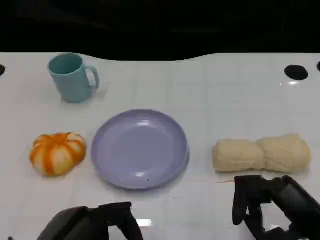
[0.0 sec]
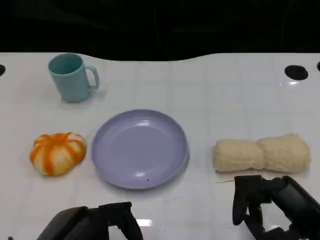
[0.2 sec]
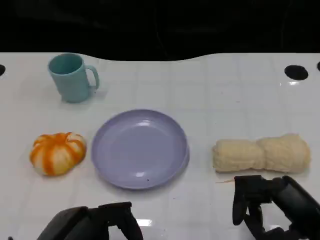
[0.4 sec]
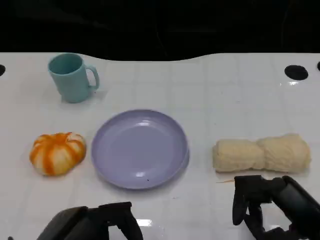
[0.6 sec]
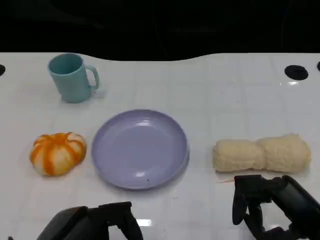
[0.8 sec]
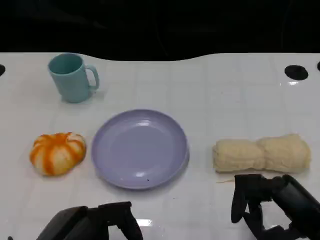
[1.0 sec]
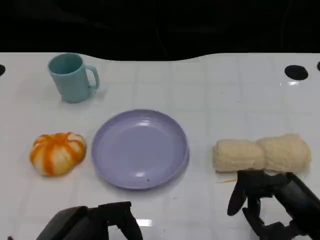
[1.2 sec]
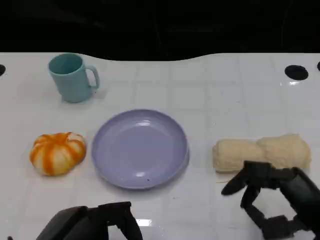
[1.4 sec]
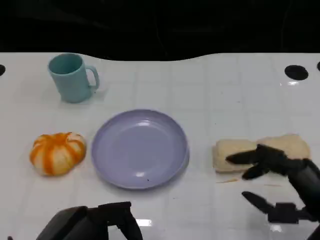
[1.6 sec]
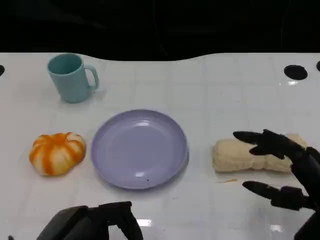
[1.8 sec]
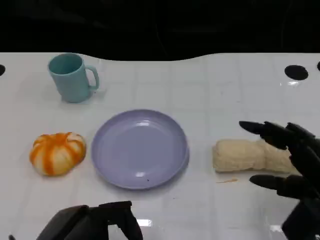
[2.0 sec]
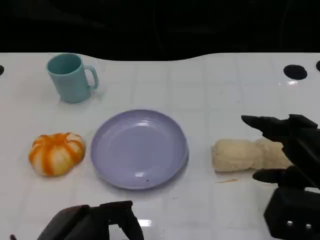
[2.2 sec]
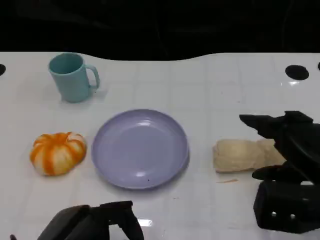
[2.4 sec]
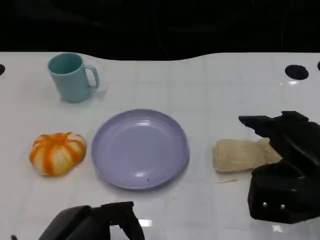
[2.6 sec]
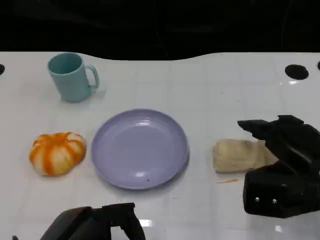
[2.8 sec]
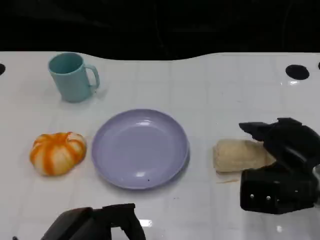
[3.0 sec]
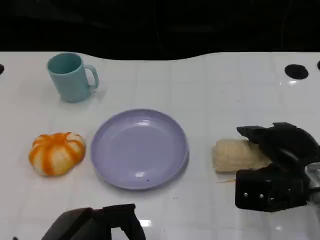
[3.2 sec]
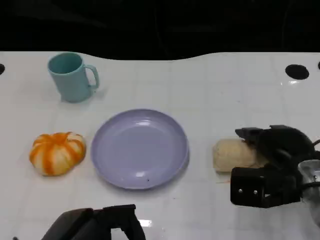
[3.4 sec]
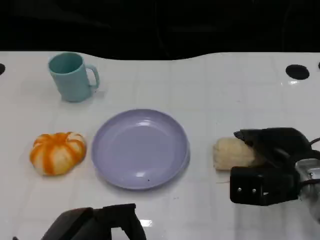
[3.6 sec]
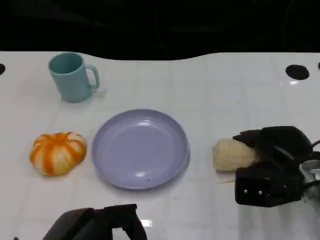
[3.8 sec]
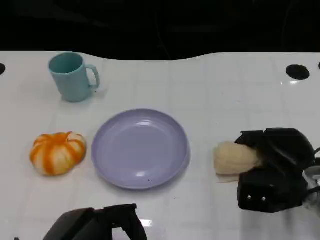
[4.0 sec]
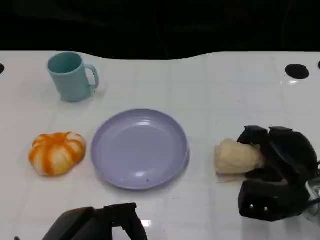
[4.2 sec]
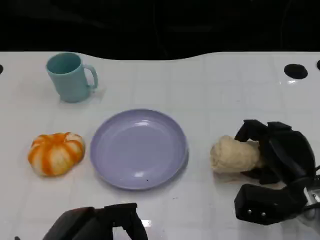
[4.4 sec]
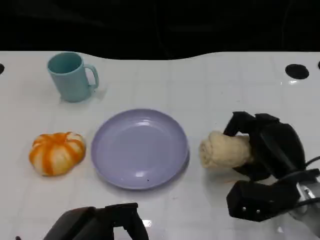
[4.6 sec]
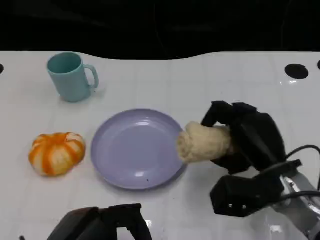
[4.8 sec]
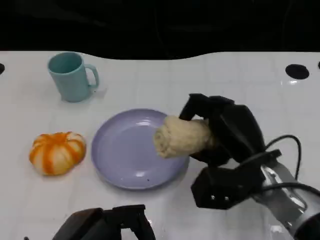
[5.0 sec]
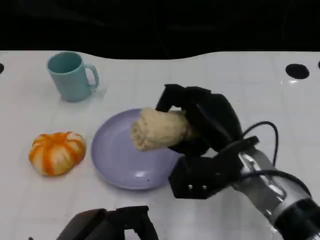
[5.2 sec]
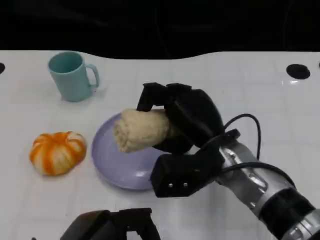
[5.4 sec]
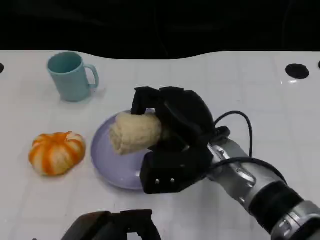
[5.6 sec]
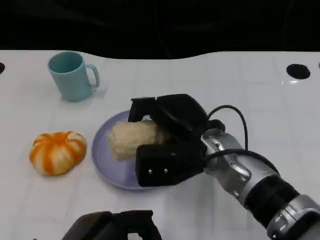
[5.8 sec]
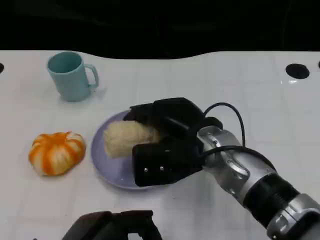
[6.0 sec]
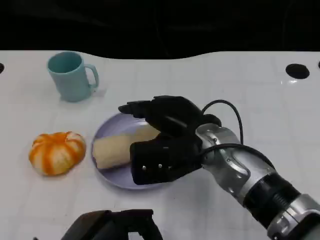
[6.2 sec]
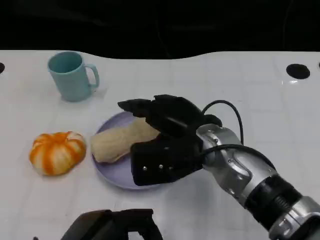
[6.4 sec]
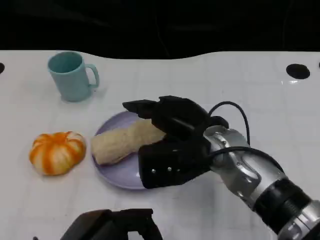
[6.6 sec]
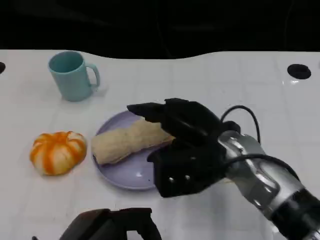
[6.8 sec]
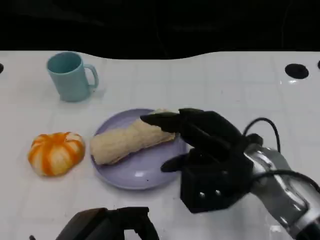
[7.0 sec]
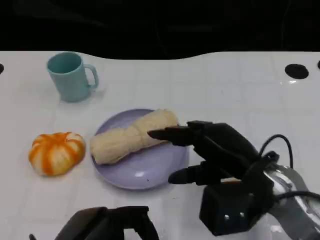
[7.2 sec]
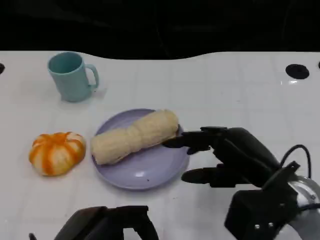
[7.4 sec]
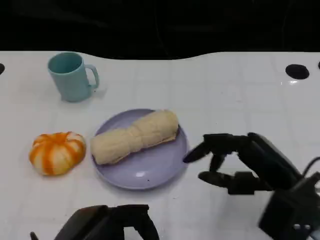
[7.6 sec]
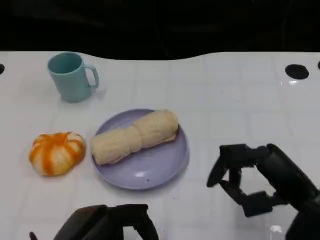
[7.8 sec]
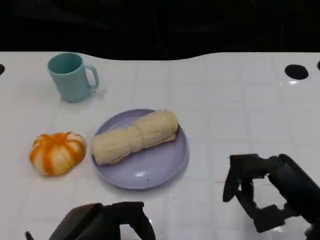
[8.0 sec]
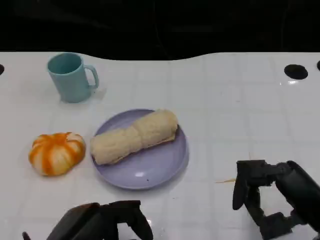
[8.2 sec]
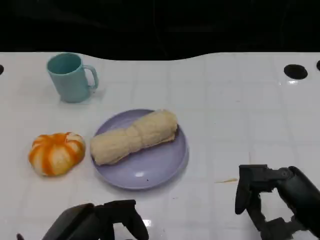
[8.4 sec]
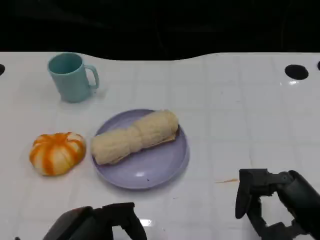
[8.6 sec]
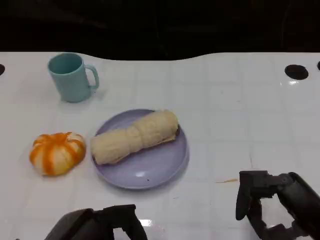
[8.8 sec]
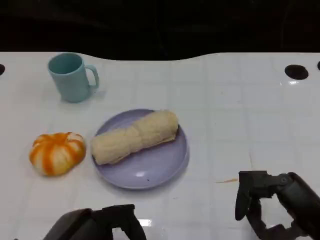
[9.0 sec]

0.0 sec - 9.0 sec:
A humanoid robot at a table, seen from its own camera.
Task of the whole recording: Grasp the towel on the left side of the plate with the left hand and place it into the plate.
0.0 sec - 1.6 sec: The hands make only small movements.
1.6 sec - 3.0 sec: The right hand moves forward, roughly 10 cm.
3.0 sec - 4.4 sec: The right hand travels downward by roughly 5 cm.
4.4 sec - 6.0 sec: The right hand is displaced to the left and upward by approximately 15 cm.
6.0 sec - 7.6 sec: The right hand goes about 15 cm to the right and backward.
7.6 sec - 9.0 sec: The right hand moves backward, some 5 cm.

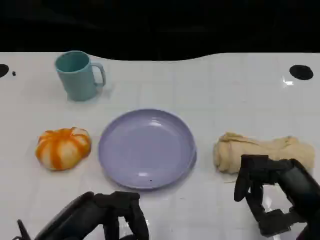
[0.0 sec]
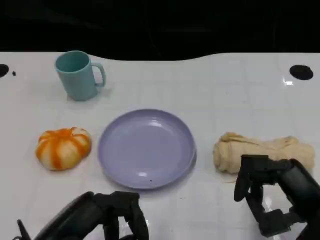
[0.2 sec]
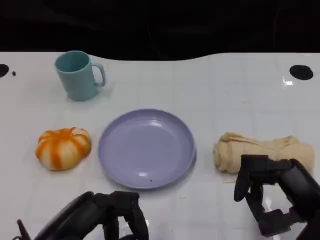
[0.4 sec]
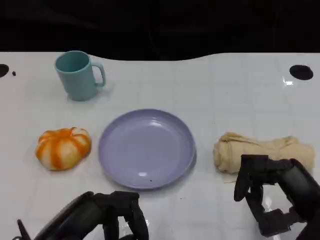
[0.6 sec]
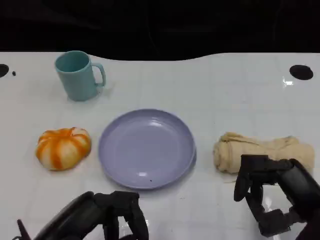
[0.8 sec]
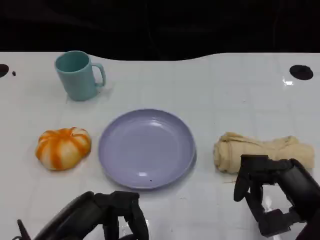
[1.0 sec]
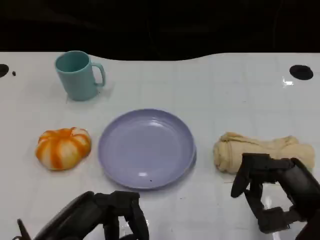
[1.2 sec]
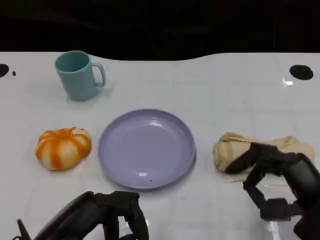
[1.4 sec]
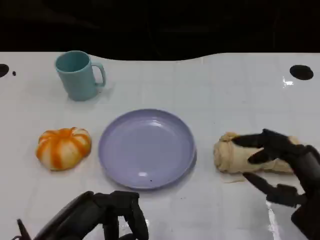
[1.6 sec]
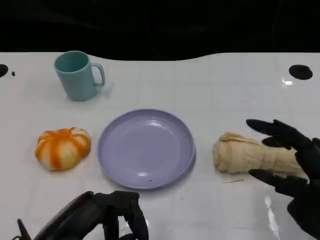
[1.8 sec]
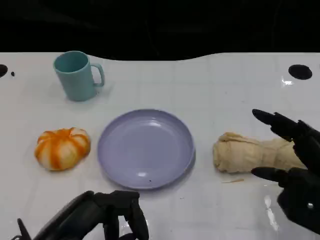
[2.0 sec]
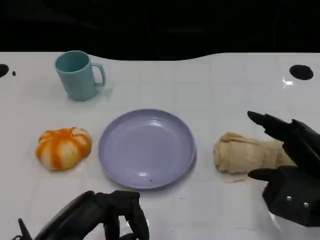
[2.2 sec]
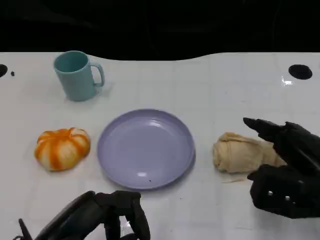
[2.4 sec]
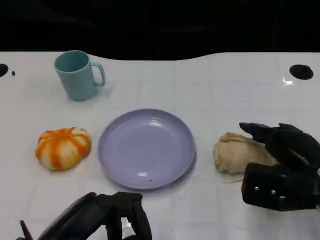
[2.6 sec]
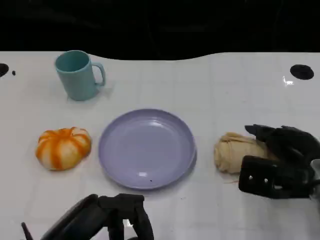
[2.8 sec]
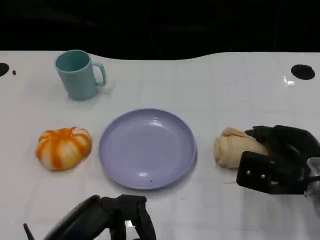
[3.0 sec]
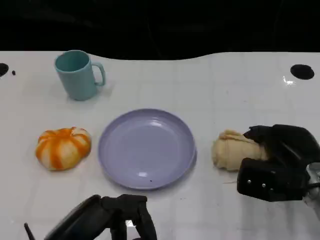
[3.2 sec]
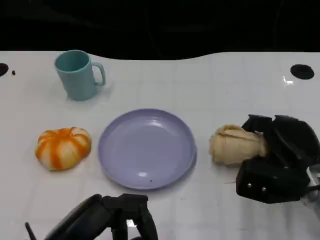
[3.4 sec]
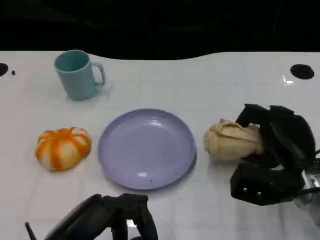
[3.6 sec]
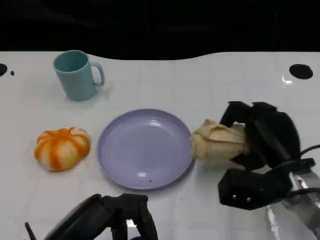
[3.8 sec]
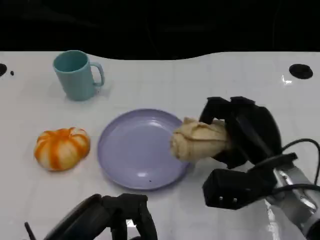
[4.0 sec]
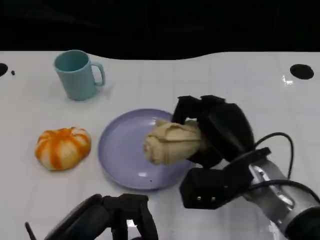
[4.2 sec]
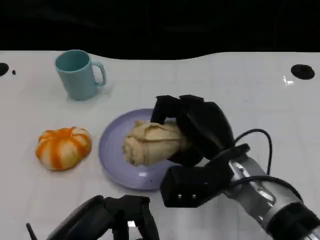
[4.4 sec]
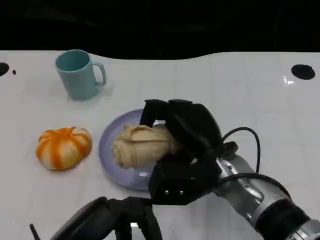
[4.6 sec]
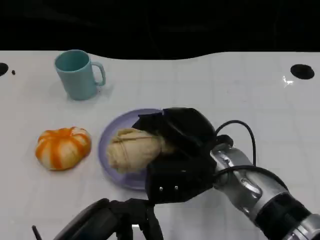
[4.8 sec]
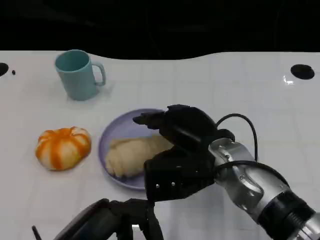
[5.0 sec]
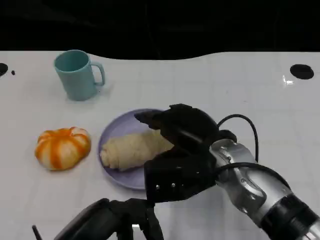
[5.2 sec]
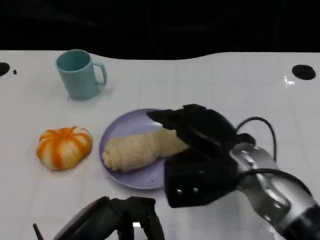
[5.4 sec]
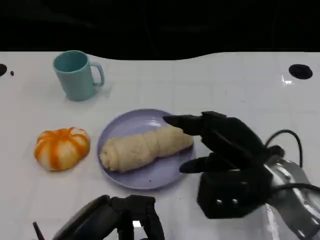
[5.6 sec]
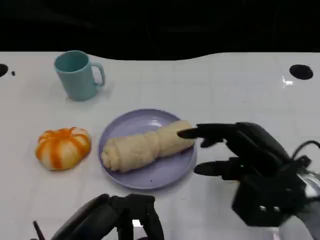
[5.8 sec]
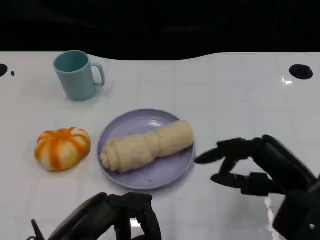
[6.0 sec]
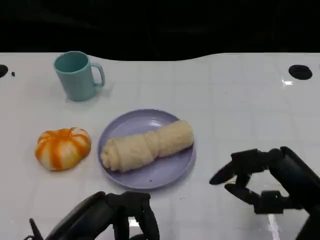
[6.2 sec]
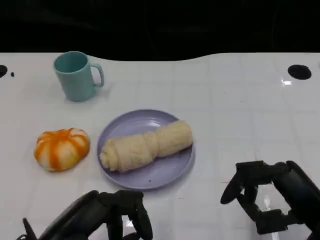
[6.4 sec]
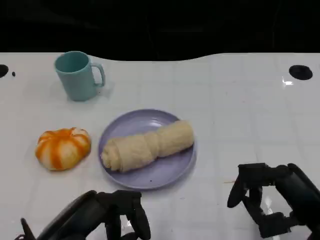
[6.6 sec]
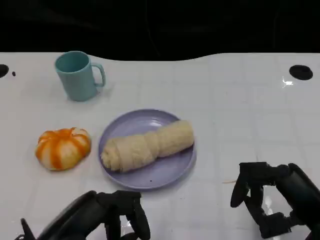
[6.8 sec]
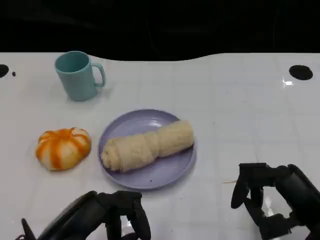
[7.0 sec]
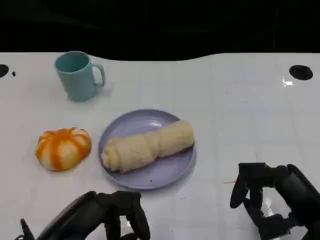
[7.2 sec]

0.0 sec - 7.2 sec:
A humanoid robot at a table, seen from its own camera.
Task of the whole recording: Grasp the towel on the left side of the plate with the left hand and place it into the plate.
0.0 sec - 1.4 sec: The hands move only a little.
1.4 sec - 2.8 sec: The right hand is displaced forward by about 10 cm.
2.8 sec - 4.4 sec: The right hand is displaced to the left by about 15 cm.
4.4 sec - 5.8 sec: The right hand goes some 10 cm to the right.
5.8 sec - 7.2 sec: The right hand heads backward, covering roughly 5 cm.

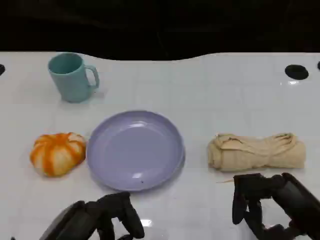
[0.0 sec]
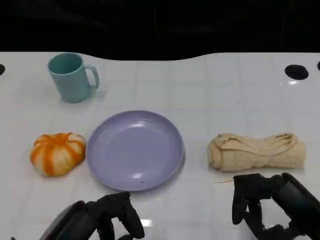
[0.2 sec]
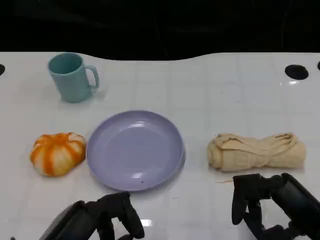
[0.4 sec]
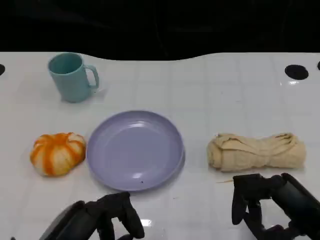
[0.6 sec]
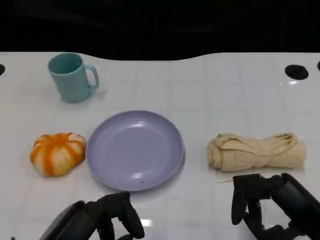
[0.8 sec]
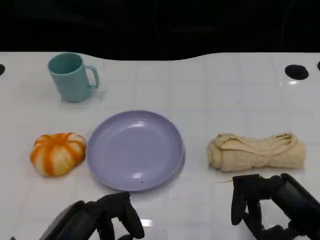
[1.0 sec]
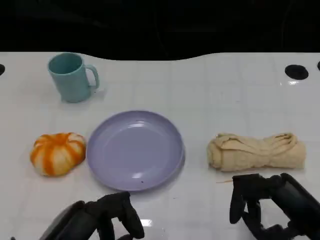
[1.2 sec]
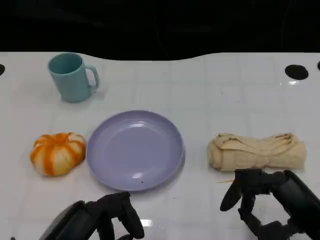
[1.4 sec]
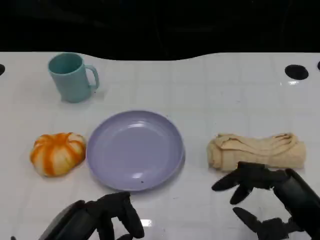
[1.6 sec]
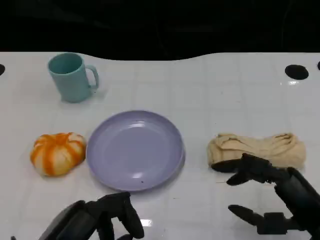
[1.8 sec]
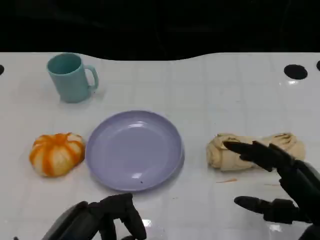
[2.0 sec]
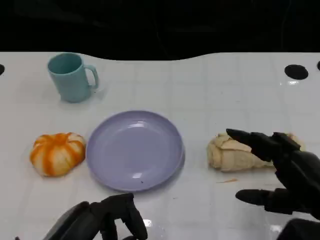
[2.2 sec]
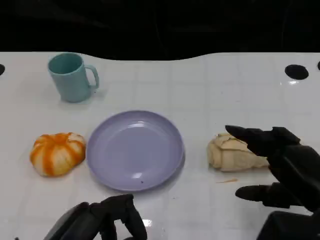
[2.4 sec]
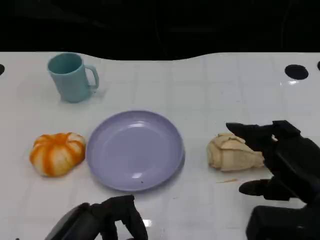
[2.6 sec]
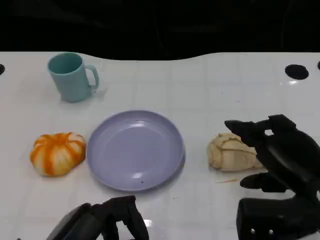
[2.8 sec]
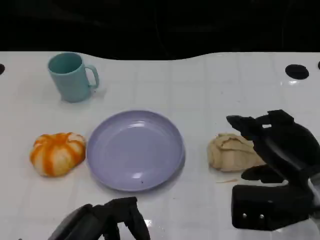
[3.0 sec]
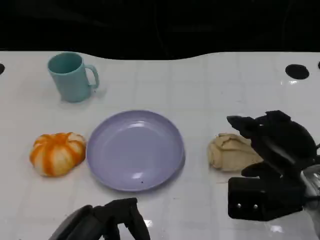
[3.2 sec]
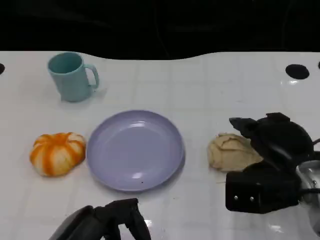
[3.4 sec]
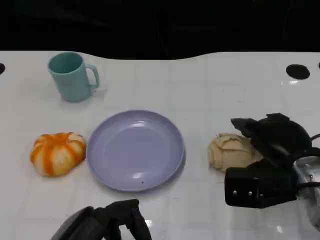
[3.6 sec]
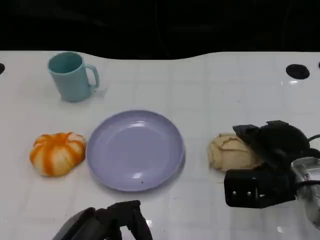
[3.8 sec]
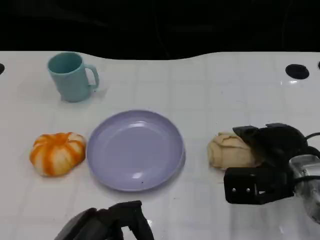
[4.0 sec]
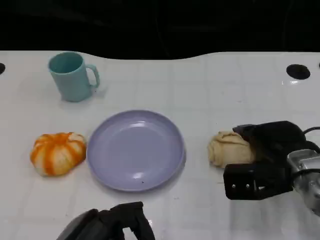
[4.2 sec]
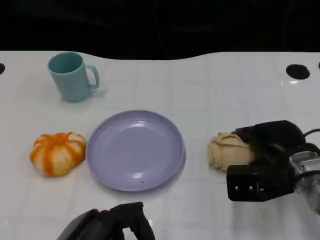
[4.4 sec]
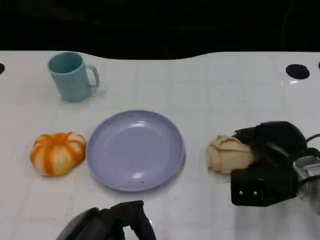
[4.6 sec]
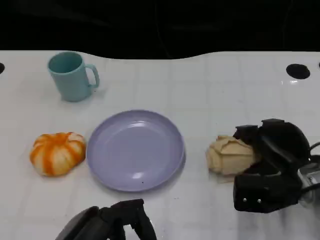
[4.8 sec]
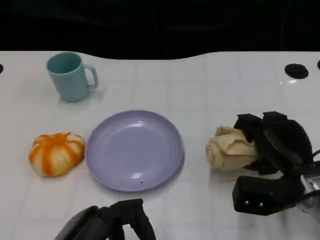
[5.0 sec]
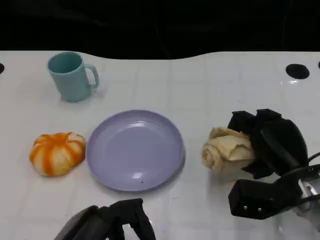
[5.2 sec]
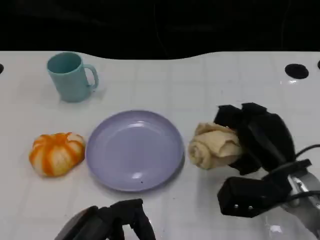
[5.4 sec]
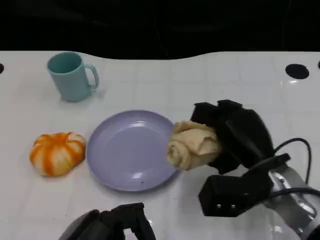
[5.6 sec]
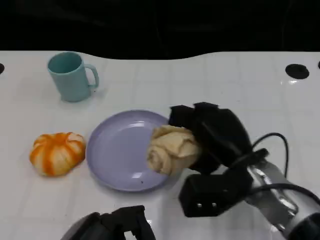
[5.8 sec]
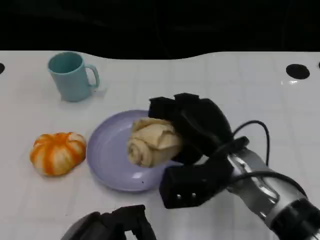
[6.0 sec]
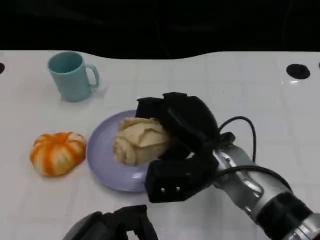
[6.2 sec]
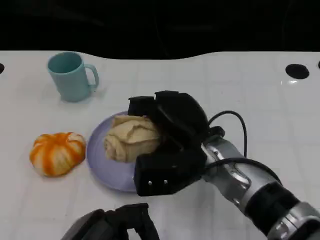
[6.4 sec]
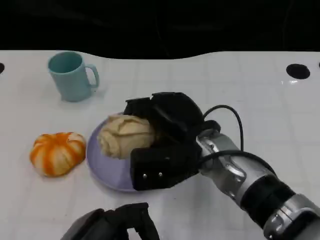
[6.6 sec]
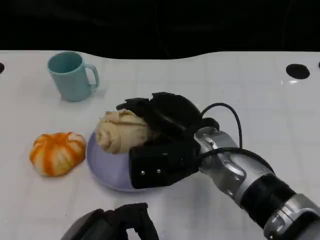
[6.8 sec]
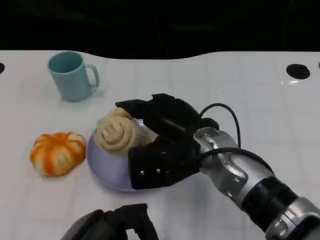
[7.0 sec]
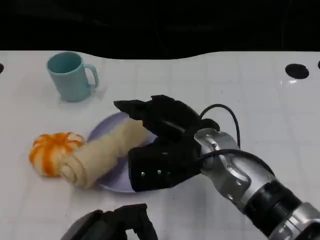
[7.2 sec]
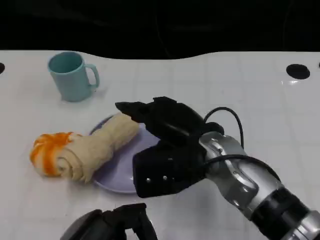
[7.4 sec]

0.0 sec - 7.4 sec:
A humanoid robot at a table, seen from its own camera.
Task of the whole recording: Grasp the towel on the left side of the plate with the left hand and place it into the plate.
0.0 sec - 1.4 sec: Both hands stay about where they are.
1.4 sec - 3.0 sec: The right hand is displaced forward by about 5 cm.
3.0 sec - 4.4 sec: The right hand goes some 5 cm forward.
4.4 sec - 6.0 sec: The right hand goes roughly 10 cm to the left and upward.
